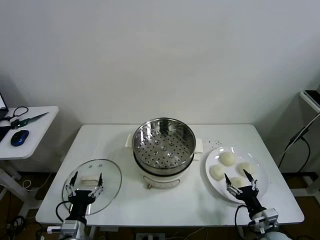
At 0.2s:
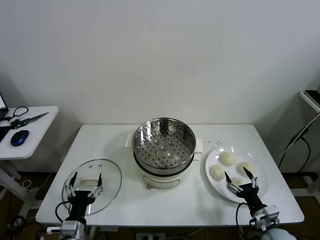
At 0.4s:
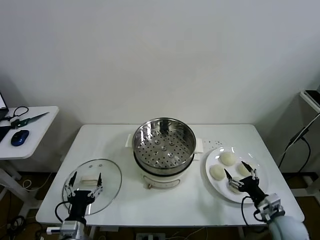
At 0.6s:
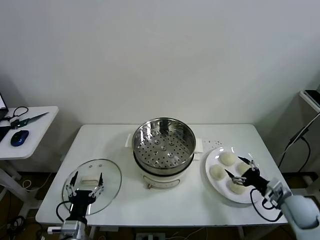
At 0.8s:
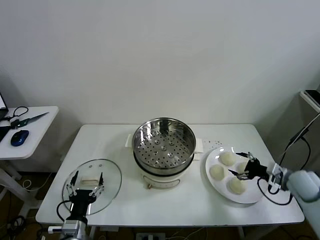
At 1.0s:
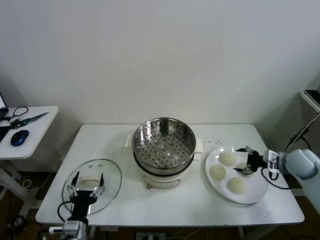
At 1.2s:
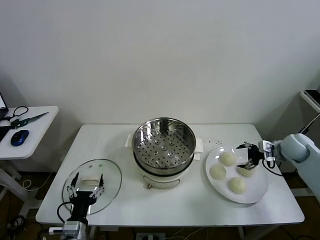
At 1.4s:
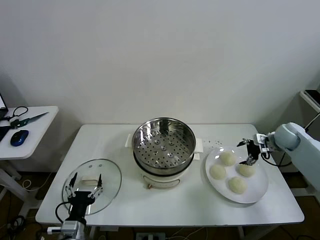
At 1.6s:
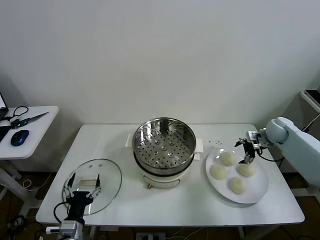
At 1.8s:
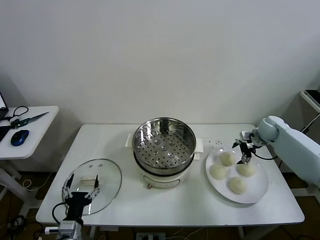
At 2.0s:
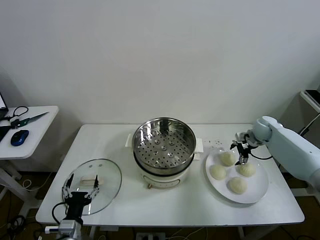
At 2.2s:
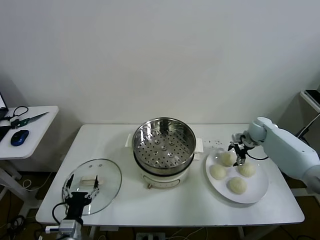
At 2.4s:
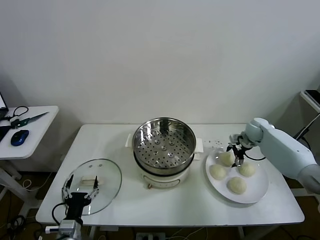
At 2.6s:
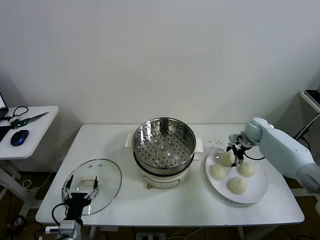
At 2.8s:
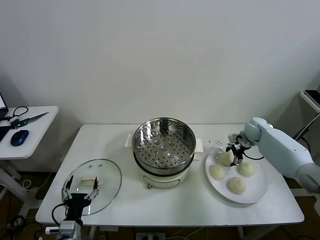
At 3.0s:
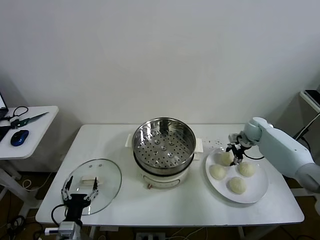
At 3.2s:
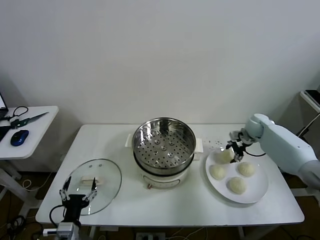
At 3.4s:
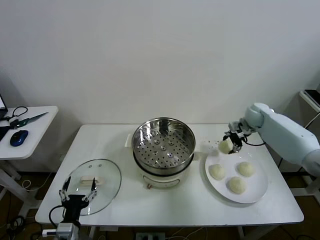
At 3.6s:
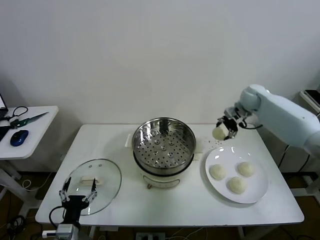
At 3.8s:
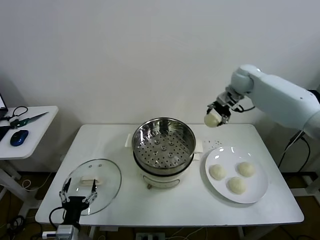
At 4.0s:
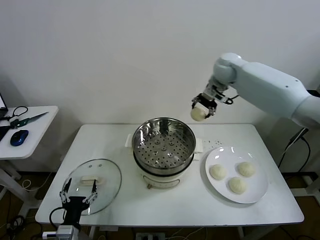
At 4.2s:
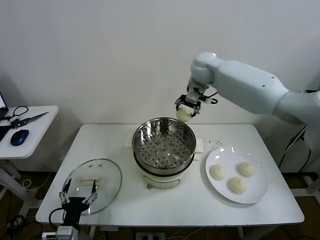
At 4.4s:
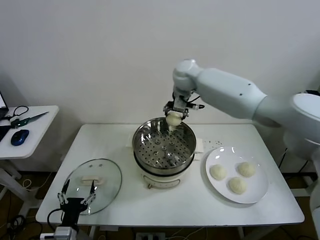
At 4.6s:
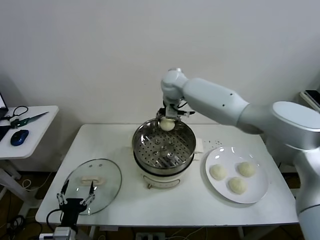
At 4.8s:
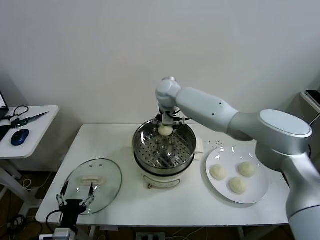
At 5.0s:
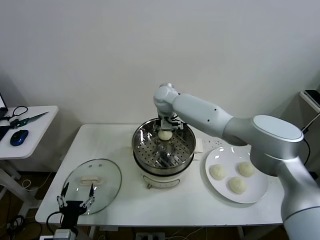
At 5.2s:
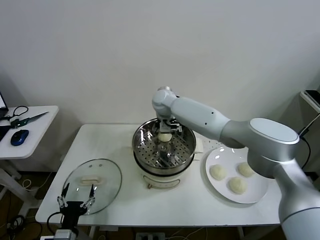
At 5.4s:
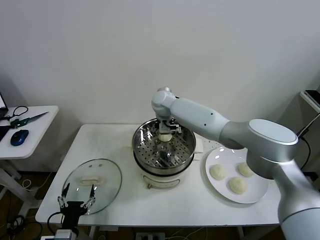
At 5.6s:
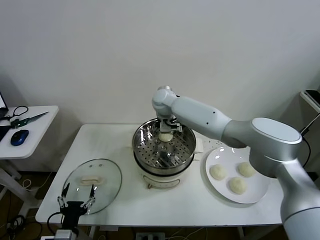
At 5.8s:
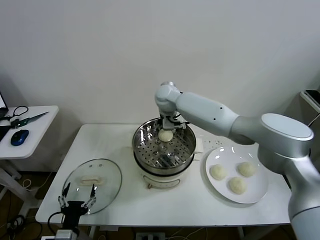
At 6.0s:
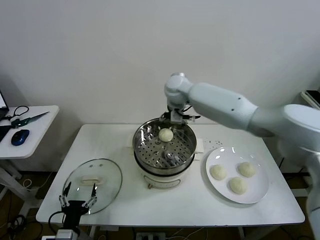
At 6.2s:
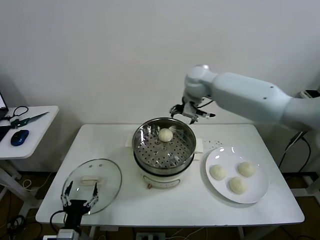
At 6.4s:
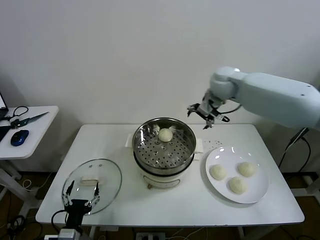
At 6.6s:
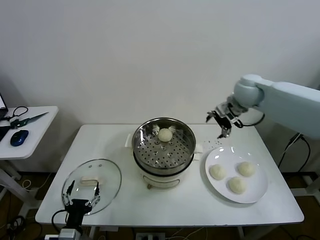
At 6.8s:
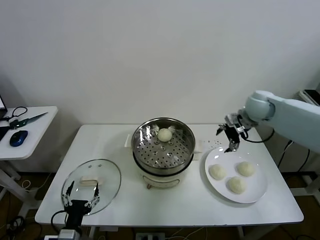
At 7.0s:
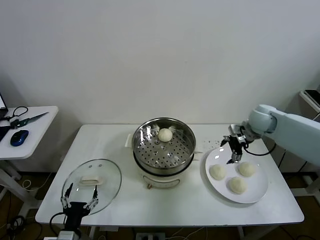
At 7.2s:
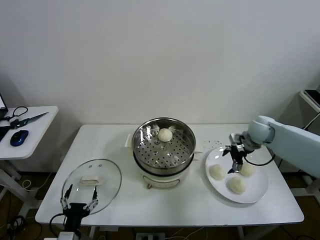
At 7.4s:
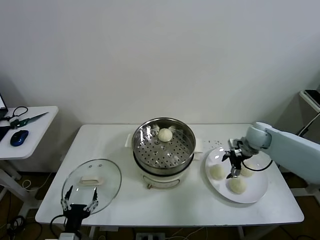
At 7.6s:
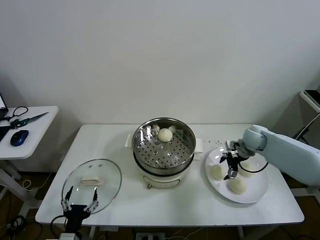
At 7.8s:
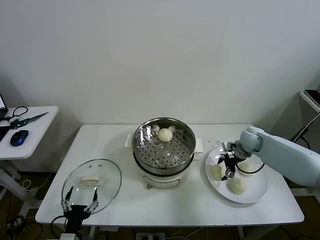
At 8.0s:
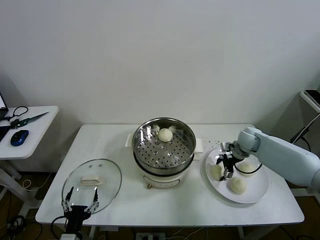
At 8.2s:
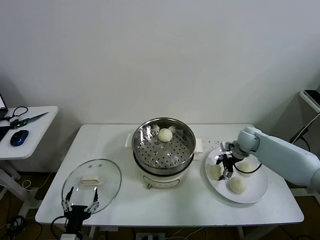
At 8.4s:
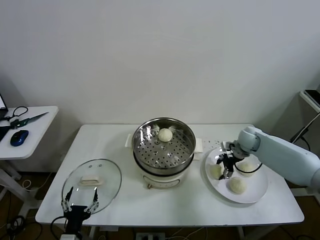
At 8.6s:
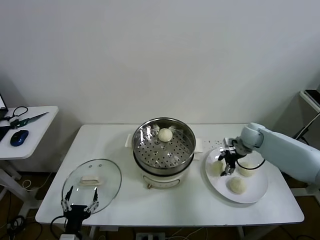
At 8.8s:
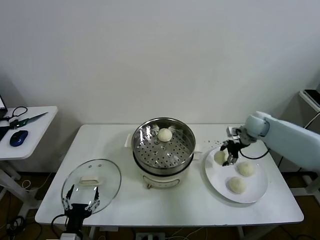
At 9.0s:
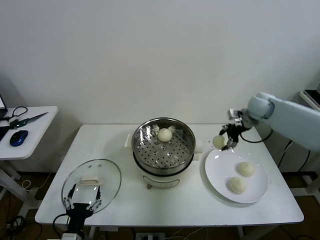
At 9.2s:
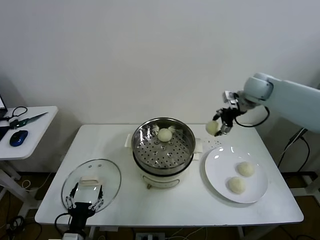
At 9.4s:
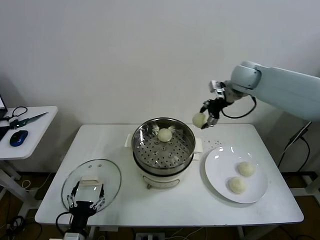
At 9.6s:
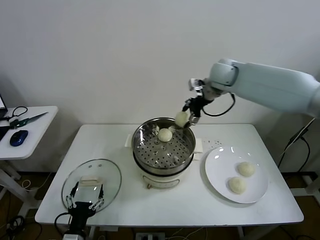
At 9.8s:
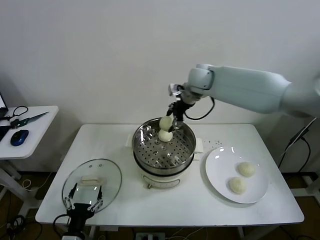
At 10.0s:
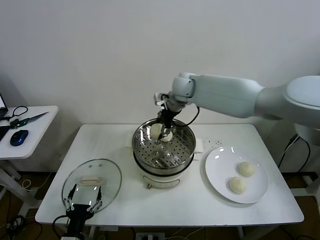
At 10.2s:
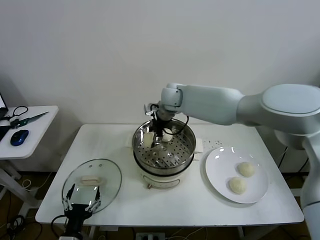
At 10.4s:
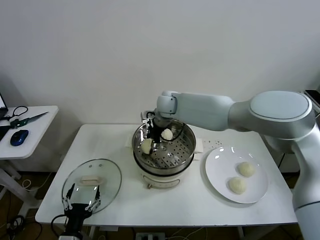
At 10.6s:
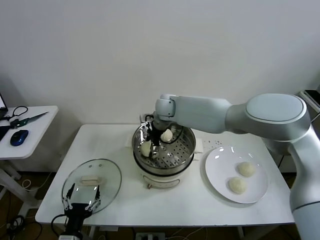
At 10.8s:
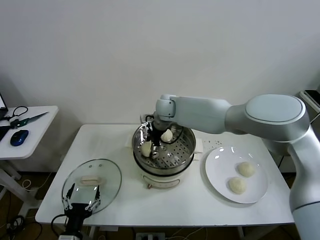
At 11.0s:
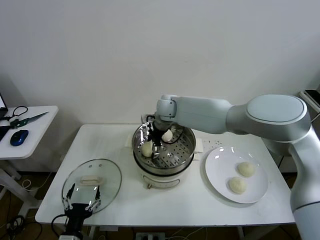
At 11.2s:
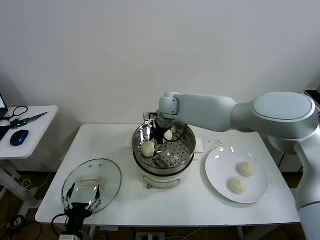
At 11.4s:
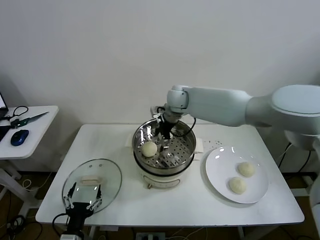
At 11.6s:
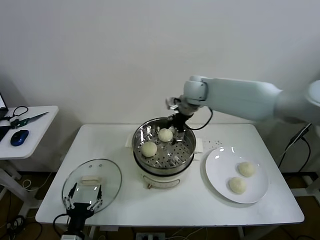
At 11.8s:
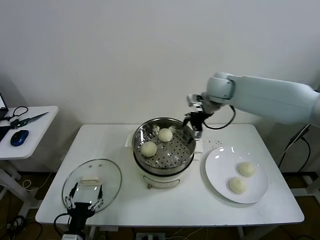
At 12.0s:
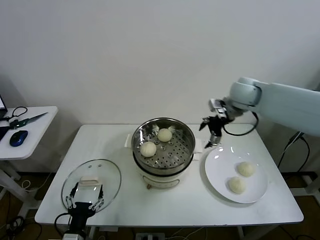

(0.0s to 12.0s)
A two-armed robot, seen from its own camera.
Task of the whole recording: take steamed baozi put them in steamer then cover it.
Step, 0.0s - 3.0s: Grasp the baozi in the plate with right gripper.
Step, 3.2s - 5.6s: Place the baozi on the steamer with right gripper.
Step, 5.8s - 8.4s: Grasp the baozi in the plate with right gripper.
Step, 8.6s - 11.2s: Place the baozi on the steamer with right gripper.
1.6s - 3.0s: The right gripper moves approximately 5 cm.
3.0s - 4.4s: The right gripper travels to the left and upward by about 40 cm.
4.4s - 6.0s: The right gripper goes downward and returns, roughly 10 cm each way.
6.0s - 7.6s: The right gripper moves to the right and downward, some 35 cm.
7.6s - 9.0s: The right gripper shifts approximately 15 cm upward.
9.0s - 10.4s: The right gripper goes approximately 35 cm to the left.
10.4s - 12.0s: The right gripper heads to the right, covering roughly 25 cm.

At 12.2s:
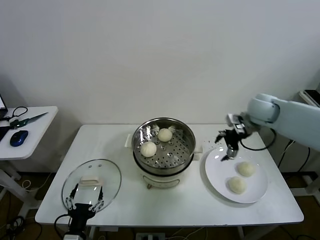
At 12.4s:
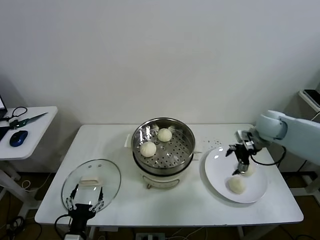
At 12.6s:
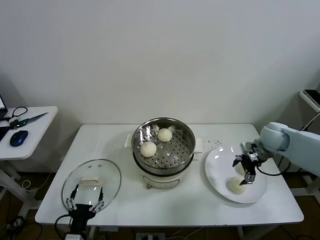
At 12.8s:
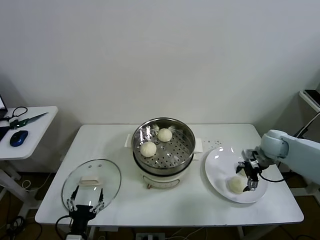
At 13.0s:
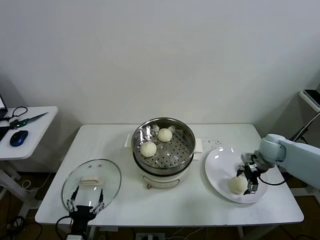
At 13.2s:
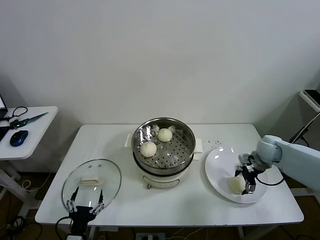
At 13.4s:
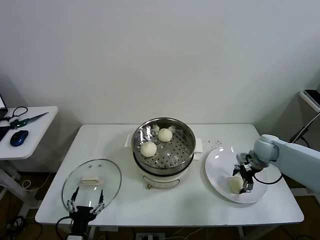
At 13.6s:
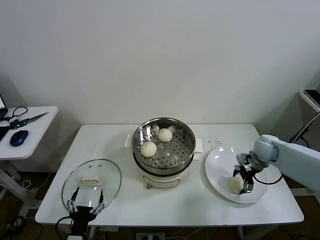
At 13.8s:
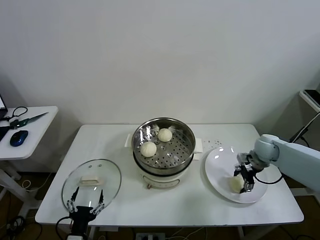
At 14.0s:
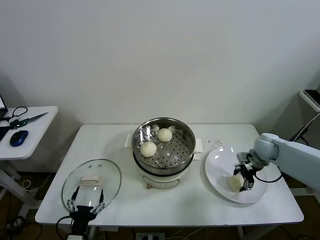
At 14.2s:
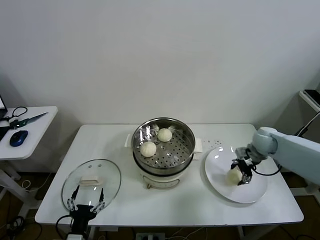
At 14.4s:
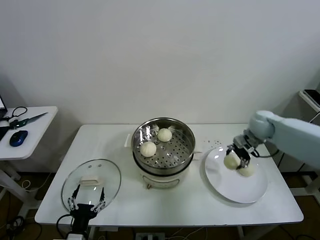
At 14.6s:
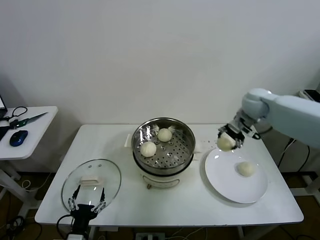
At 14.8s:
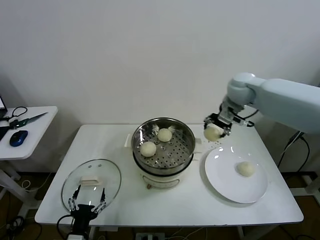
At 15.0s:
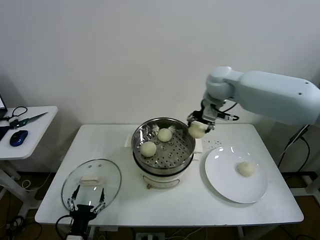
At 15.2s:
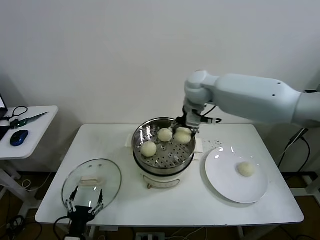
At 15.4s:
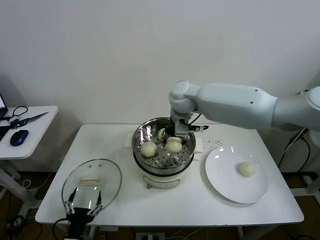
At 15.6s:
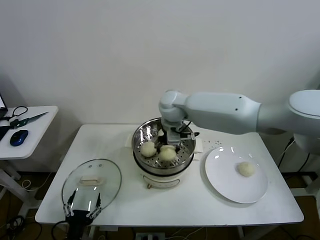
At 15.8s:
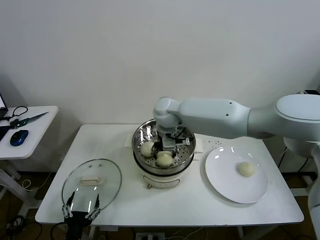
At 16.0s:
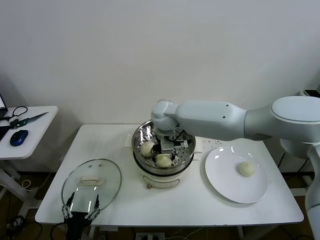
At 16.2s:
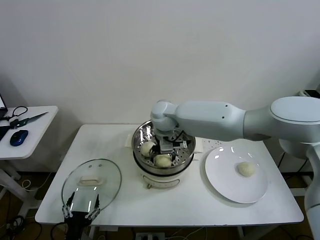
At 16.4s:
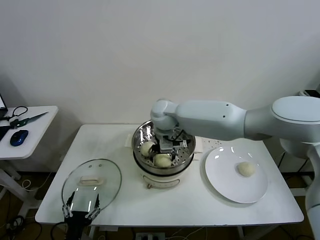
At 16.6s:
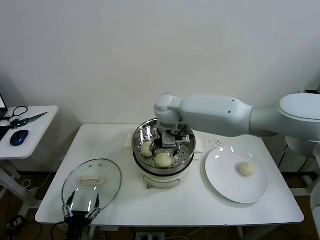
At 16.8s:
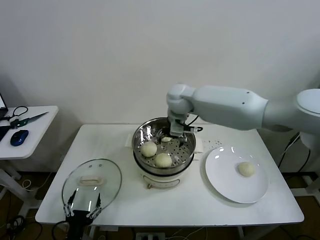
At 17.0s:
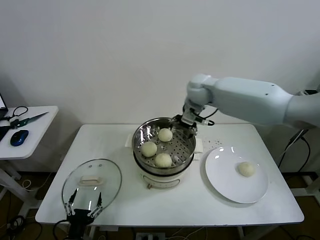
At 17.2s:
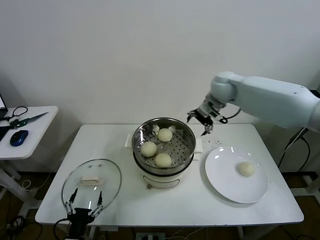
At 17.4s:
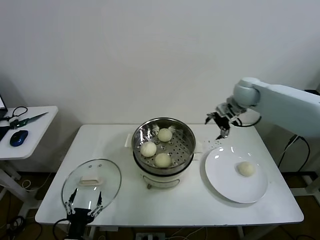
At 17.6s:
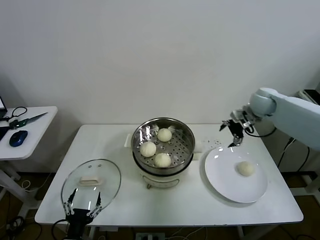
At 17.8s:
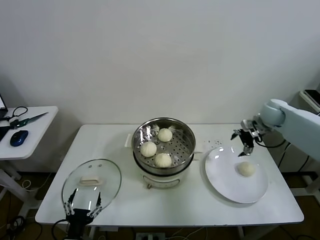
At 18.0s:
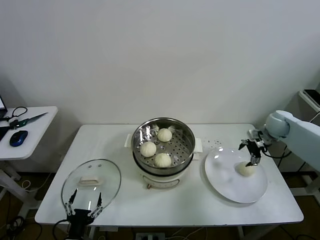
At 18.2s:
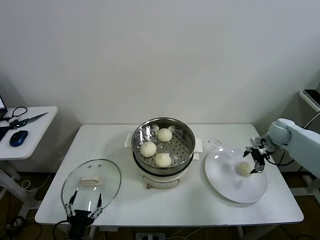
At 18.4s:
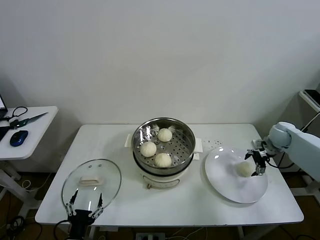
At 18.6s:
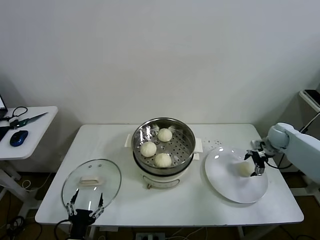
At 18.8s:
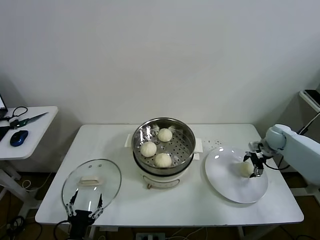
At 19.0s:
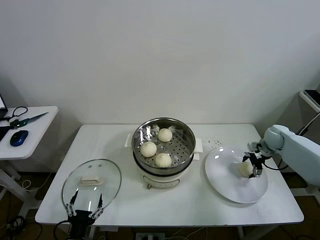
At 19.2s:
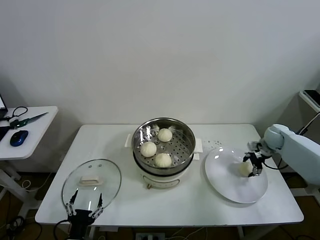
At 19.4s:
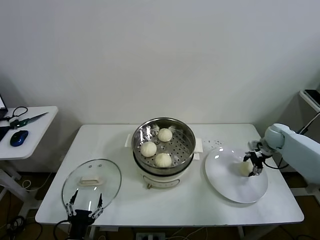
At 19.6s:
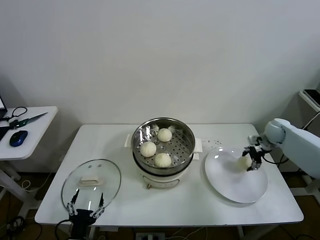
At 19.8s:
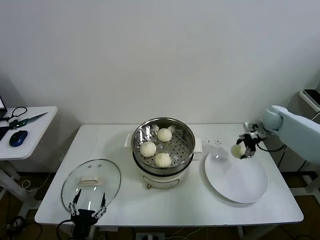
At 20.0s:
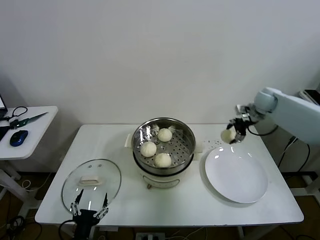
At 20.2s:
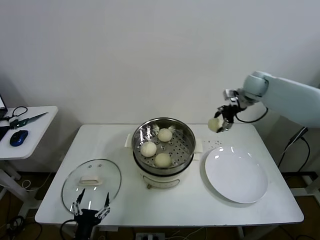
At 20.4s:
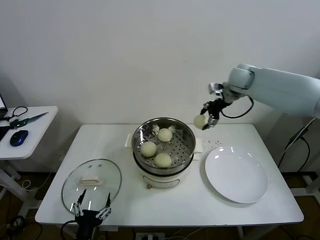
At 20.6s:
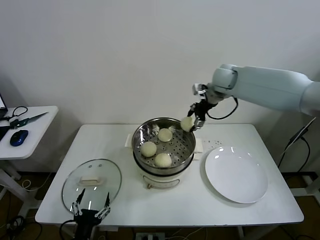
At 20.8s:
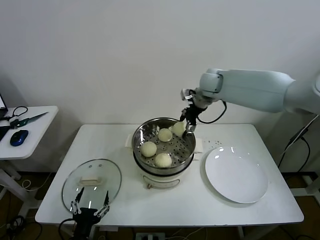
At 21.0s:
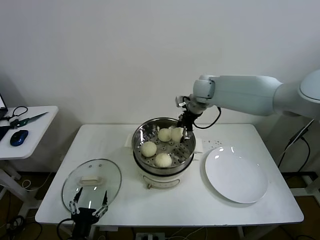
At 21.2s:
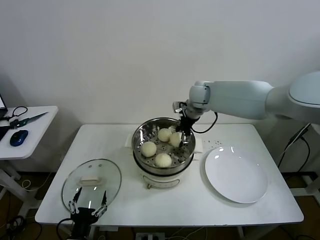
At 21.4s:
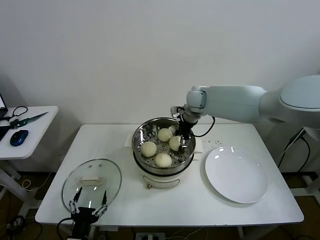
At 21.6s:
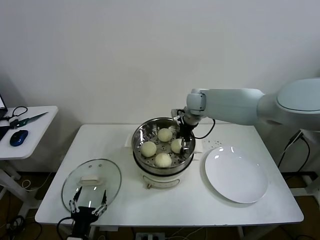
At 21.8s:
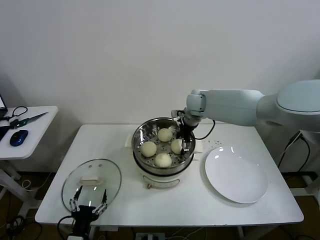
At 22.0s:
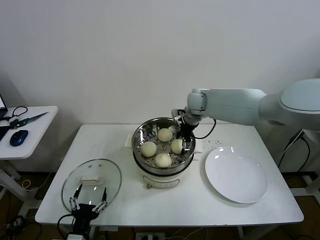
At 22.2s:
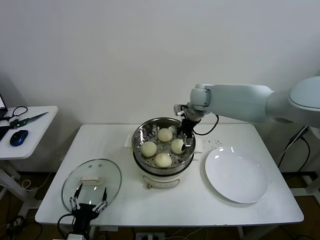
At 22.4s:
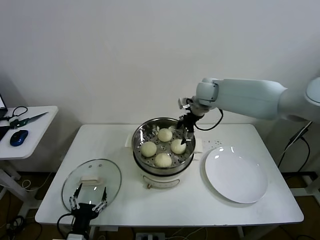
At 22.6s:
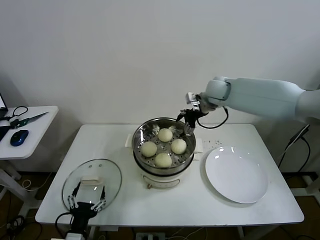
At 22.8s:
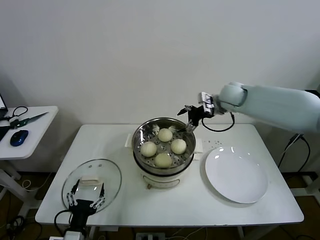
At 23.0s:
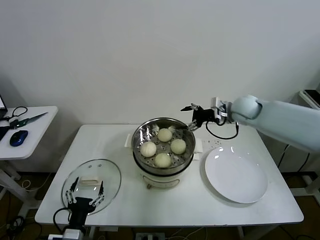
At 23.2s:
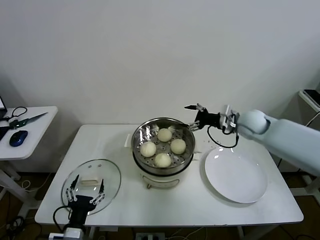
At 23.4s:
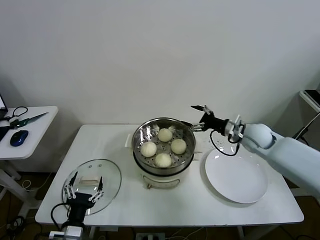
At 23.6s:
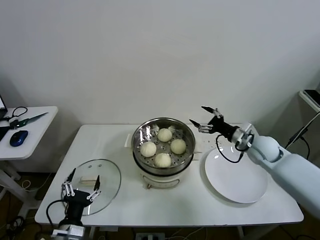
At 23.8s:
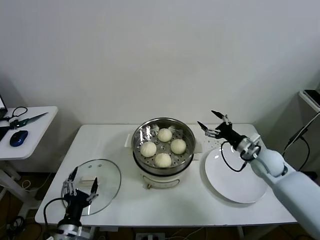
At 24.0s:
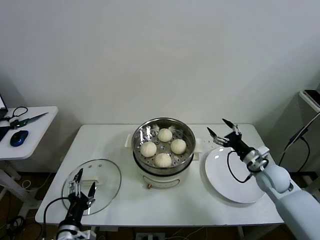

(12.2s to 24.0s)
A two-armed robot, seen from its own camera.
Task of the whole recording: take steamed baozi put them in steamer then cover it.
Step, 12.2s - 13.8s: Grasp the baozi in the plate with right gripper.
Step, 14.2s - 16.4s: Place the baozi on the steamer with right gripper.
Step, 16.6s - 19.2s: Grasp the baozi in the plate with right gripper.
Step, 19.6s - 22.0s: Place the baozi on the steamer with right gripper.
12.2s - 13.6s: The right gripper is displaced downward by about 15 cm.
13.6s - 15.2s: The right gripper heads to the left and upward, covering approximately 35 cm.
15.2s - 16.6s: The right gripper travels to the left and downward by roughly 10 cm.
16.6s - 18.2s: The right gripper moves to the right, some 40 cm.
18.2s - 19.6s: There are only small adjustments of the grippers.
19.6s - 21.0s: The right gripper heads to the left and upward, covering about 35 cm.
21.0s - 22.6s: The grippers stay close to where they were, moving slightly.
22.6s - 24.0s: The right gripper goes approximately 35 cm downward, backward and to the right.
